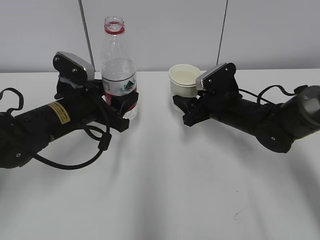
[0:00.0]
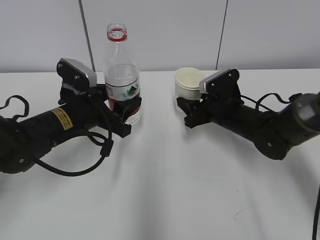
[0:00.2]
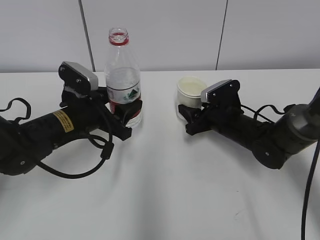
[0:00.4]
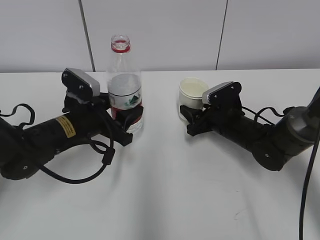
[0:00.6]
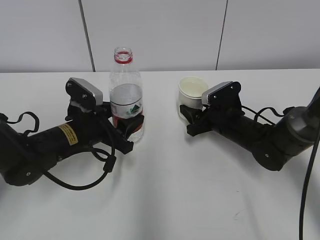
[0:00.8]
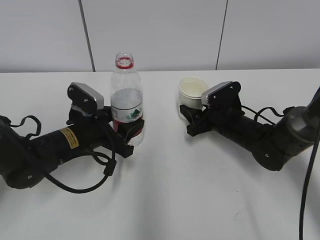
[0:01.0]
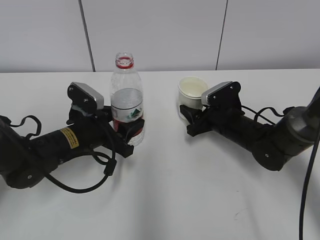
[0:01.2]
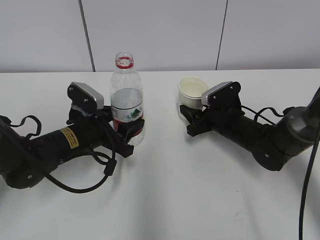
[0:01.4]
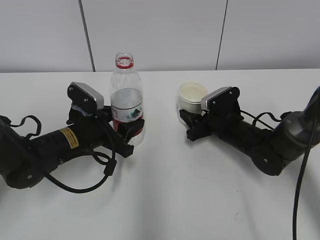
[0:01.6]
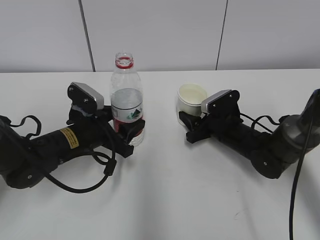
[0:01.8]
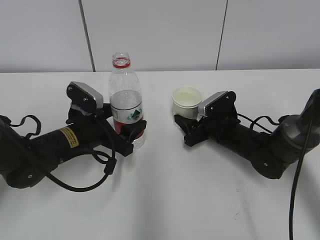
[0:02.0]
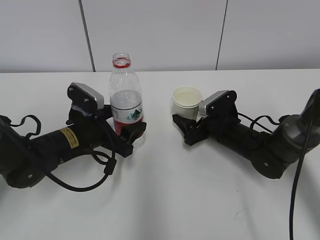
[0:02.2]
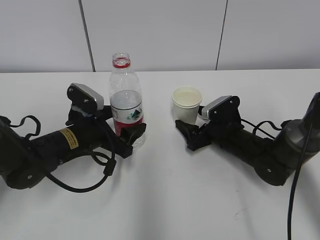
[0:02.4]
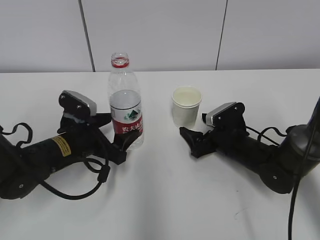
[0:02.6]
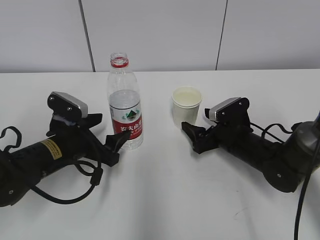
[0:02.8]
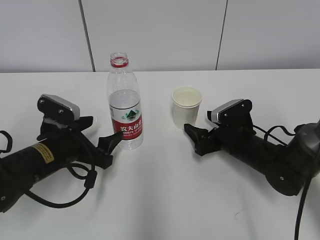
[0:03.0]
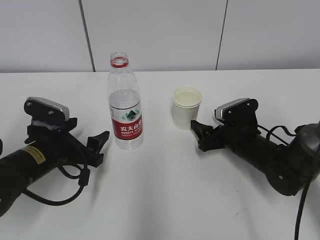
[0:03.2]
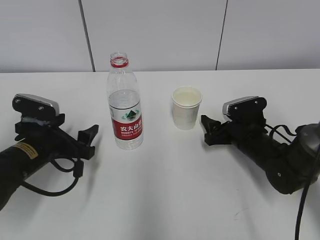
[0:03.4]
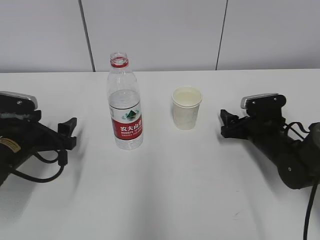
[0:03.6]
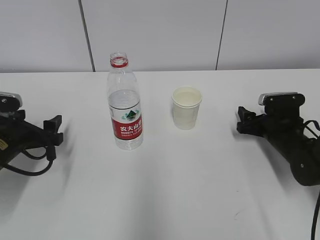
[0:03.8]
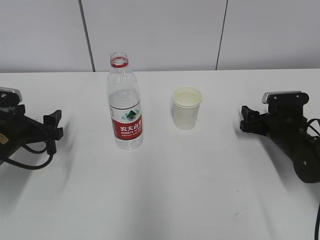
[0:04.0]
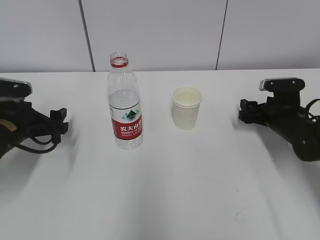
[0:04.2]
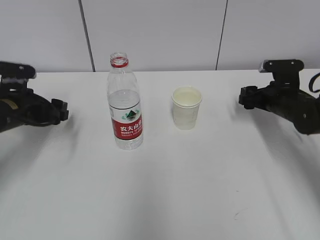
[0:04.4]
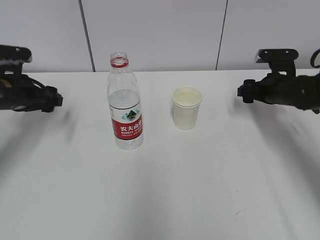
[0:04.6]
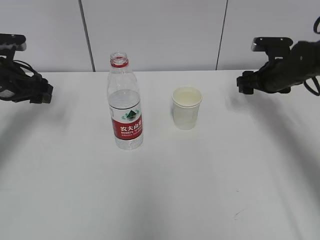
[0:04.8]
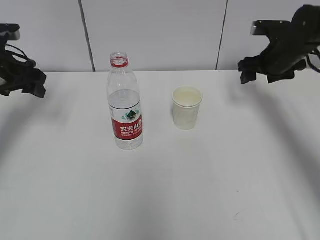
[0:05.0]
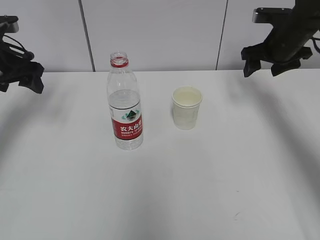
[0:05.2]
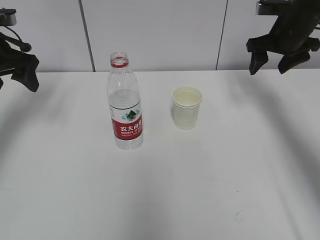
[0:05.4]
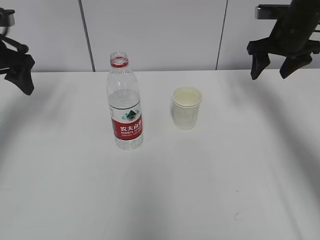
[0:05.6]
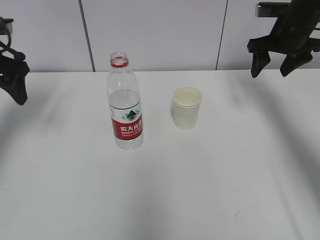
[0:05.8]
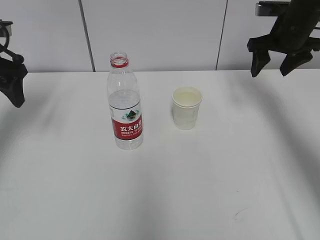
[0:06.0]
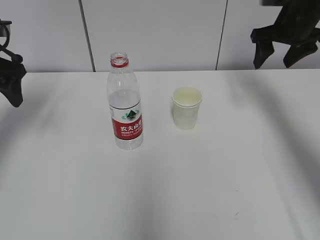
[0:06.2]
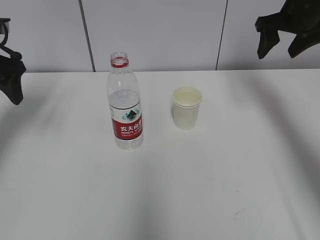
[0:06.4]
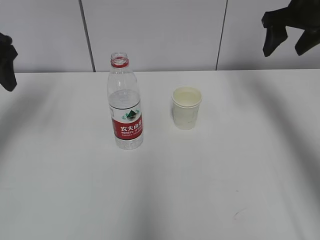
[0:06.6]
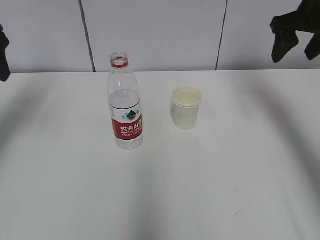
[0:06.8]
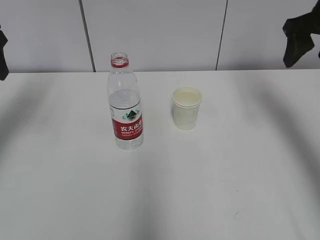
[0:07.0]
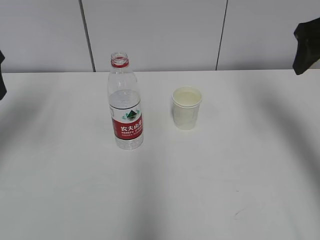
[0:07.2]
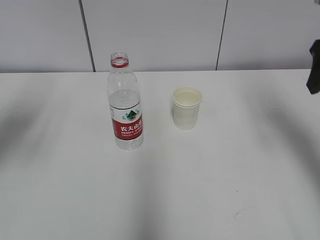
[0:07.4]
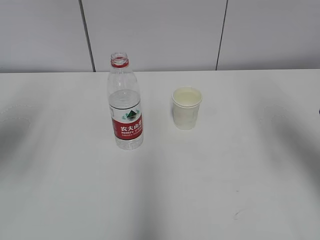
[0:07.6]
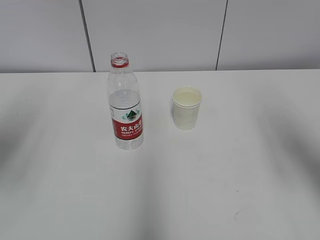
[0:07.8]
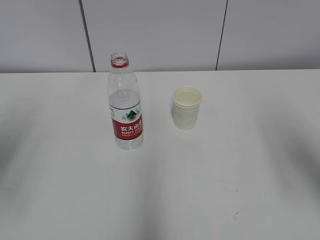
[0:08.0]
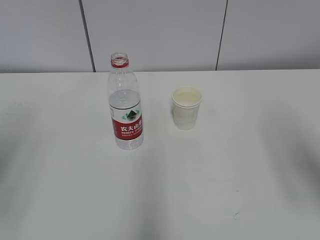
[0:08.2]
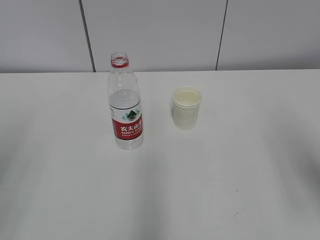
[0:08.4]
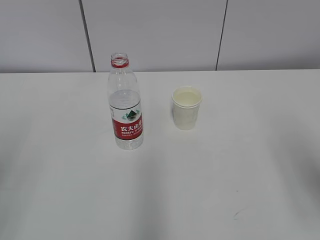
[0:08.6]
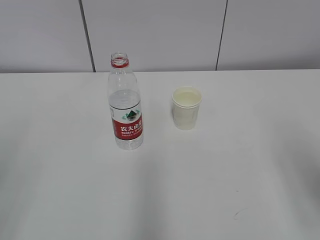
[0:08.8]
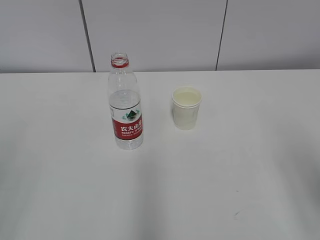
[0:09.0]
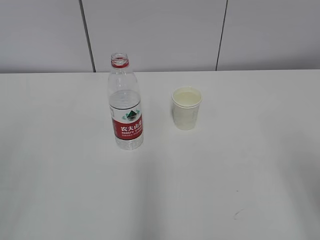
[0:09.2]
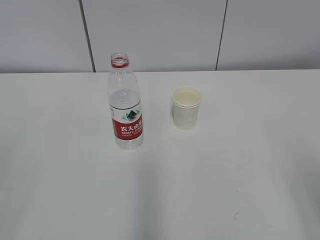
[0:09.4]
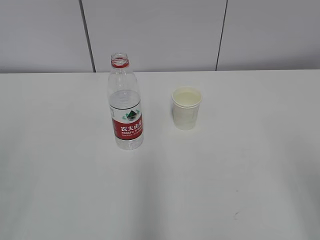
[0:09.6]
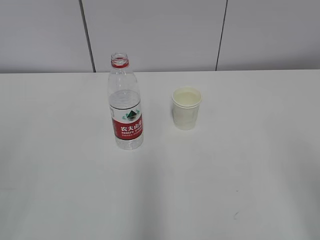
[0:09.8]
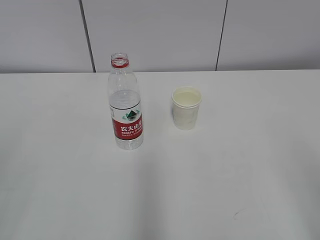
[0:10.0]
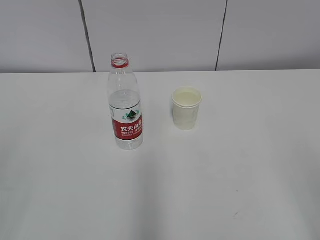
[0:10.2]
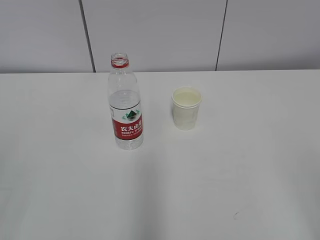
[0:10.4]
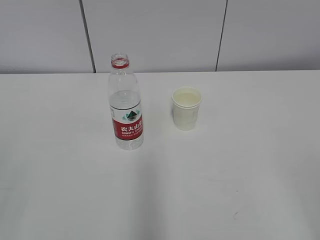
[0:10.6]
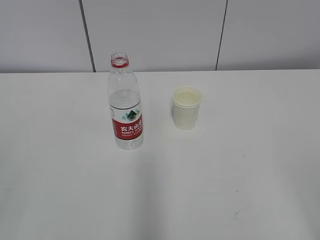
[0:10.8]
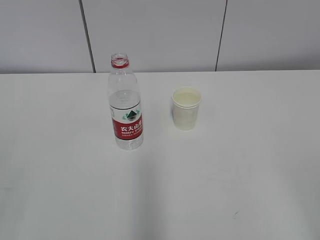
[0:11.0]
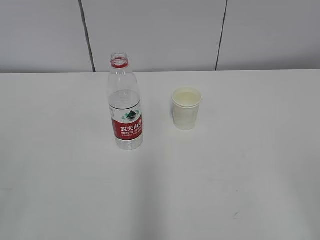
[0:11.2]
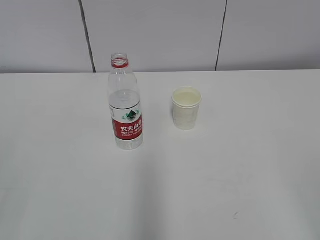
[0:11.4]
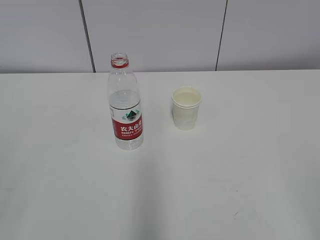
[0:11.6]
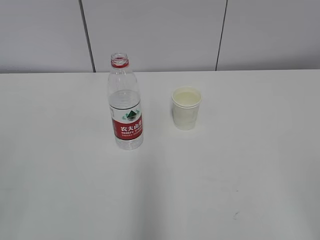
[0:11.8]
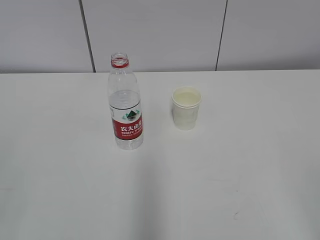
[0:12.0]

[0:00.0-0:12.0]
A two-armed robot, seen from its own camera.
0:00.0 to 0:01.6: Both grippers travel together downward, roughly 5 cm.
0:01.6 to 0:03.0: The left gripper opens up, while the right gripper opens its fingers.
0:03.0 to 0:04.4: The right gripper is displaced to the right and forward by some 10 cm, while the left gripper is displaced to the left and forward by approximately 10 cm.
0:04.4 to 0:06.0: The grippers both shift upward by approximately 15 cm.
0:06.0 to 0:07.6: The left gripper heads backward, covering roughly 15 cm, while the right gripper is displaced backward by some 20 cm.
0:07.6 to 0:09.0: The grippers both shift backward by roughly 15 cm.

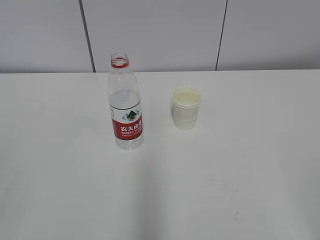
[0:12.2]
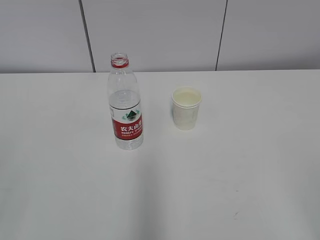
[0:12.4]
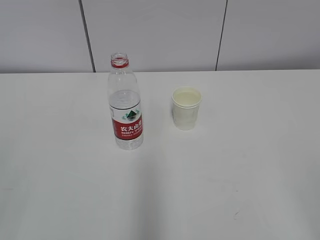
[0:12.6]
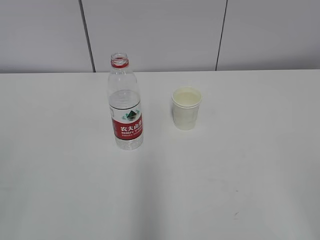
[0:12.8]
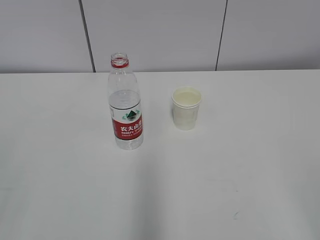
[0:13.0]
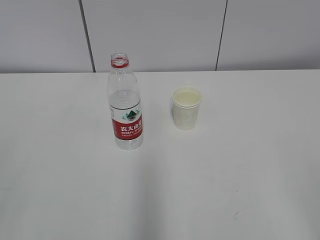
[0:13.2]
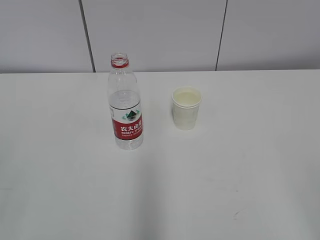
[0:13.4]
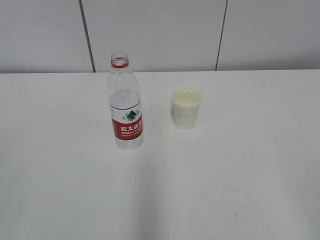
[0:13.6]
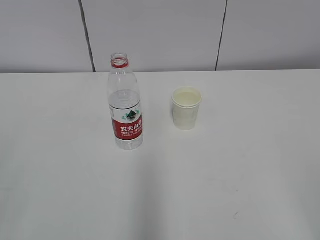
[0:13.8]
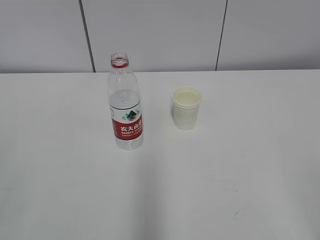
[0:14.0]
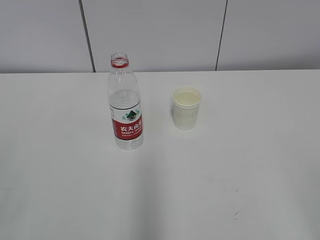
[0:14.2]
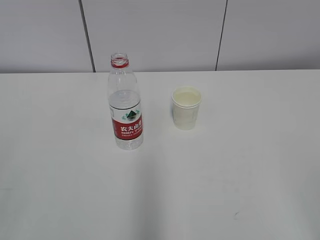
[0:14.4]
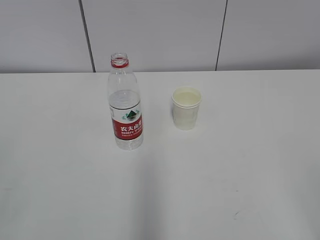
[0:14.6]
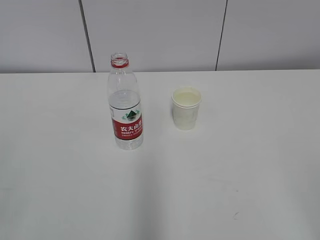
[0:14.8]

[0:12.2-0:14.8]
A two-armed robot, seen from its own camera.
0:12.2 to 0:14.8: Neither gripper changes place.

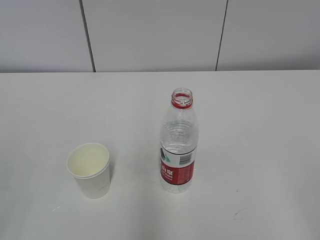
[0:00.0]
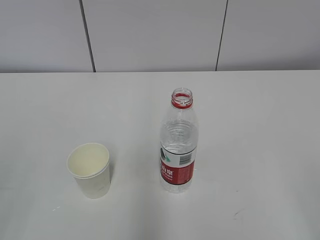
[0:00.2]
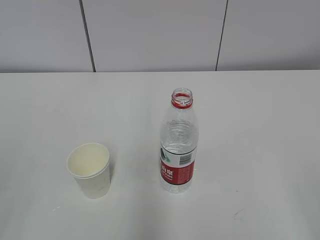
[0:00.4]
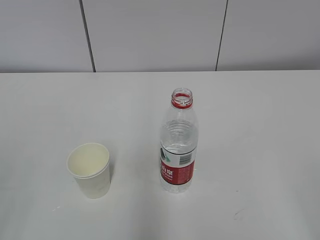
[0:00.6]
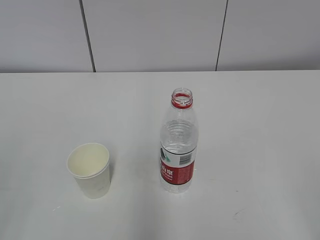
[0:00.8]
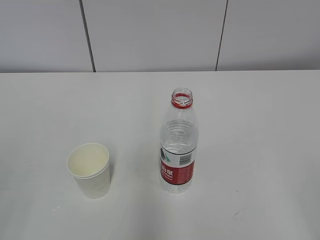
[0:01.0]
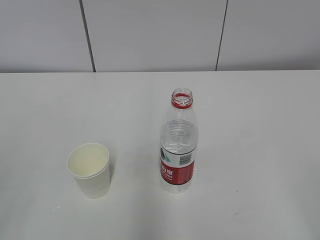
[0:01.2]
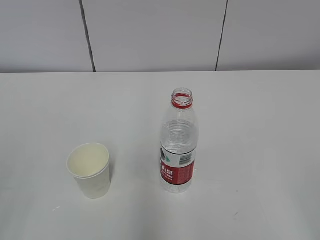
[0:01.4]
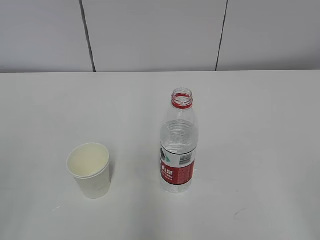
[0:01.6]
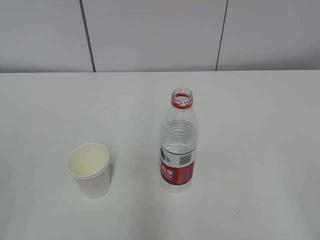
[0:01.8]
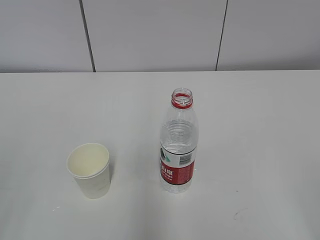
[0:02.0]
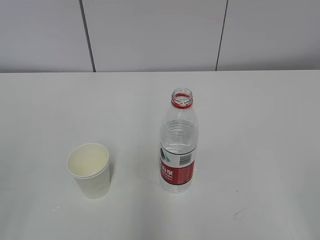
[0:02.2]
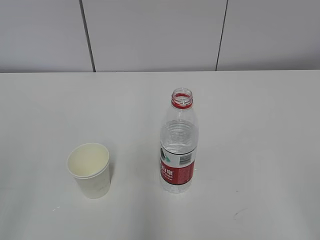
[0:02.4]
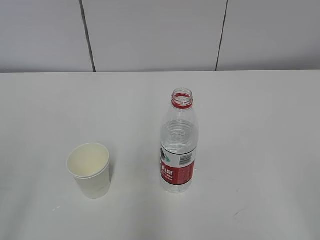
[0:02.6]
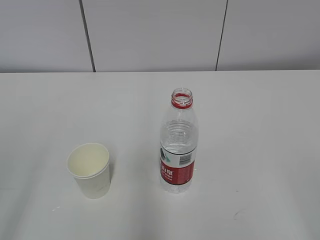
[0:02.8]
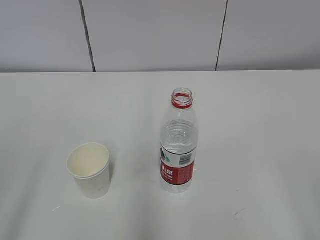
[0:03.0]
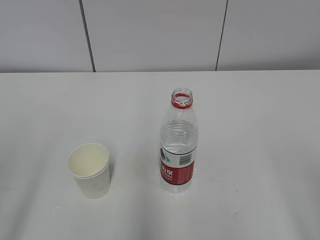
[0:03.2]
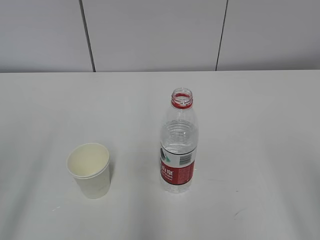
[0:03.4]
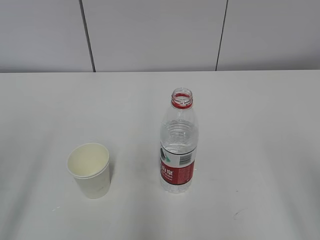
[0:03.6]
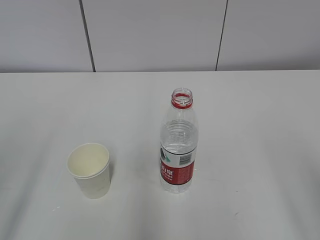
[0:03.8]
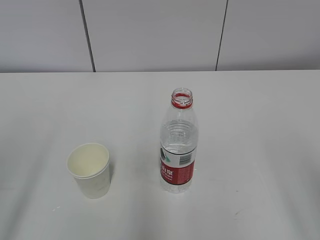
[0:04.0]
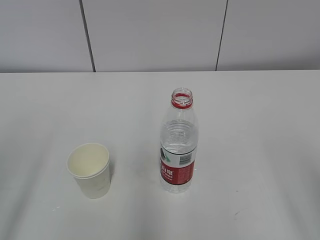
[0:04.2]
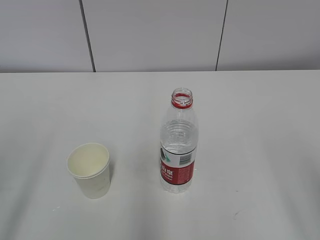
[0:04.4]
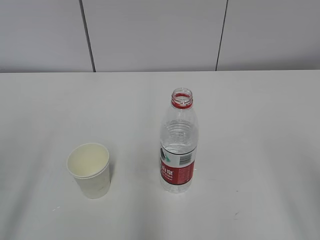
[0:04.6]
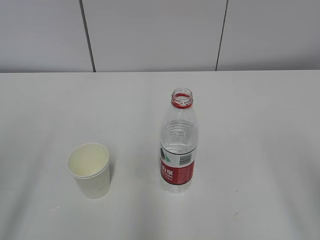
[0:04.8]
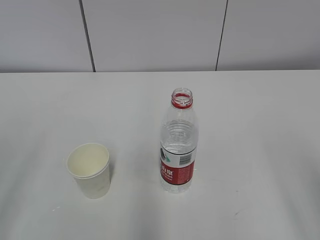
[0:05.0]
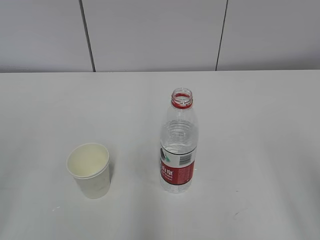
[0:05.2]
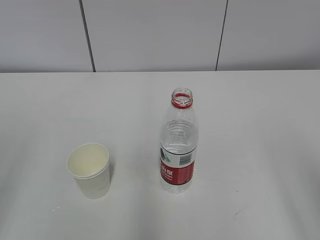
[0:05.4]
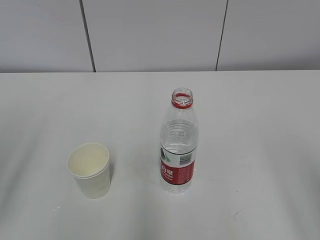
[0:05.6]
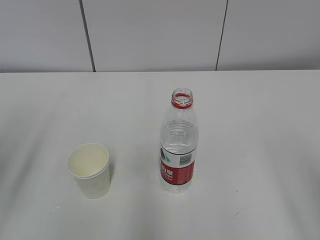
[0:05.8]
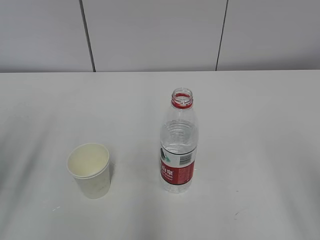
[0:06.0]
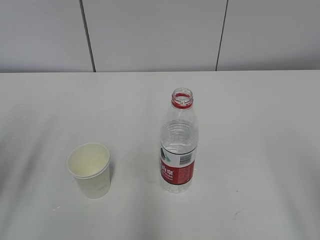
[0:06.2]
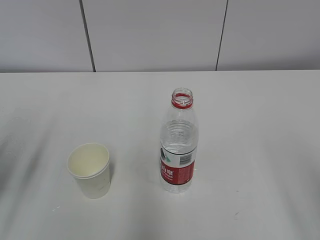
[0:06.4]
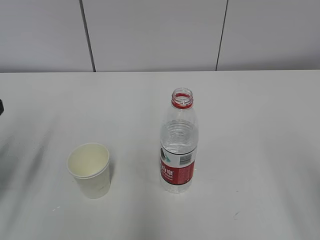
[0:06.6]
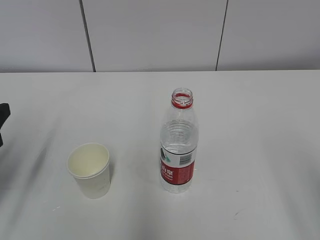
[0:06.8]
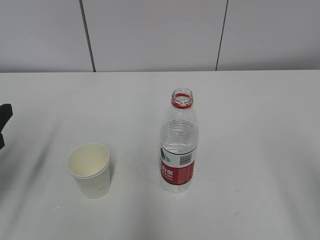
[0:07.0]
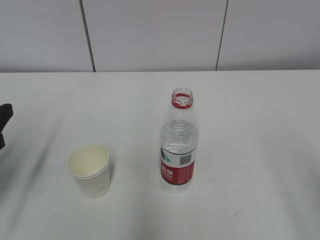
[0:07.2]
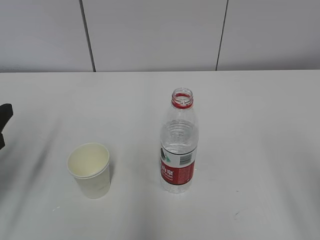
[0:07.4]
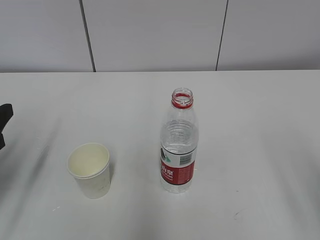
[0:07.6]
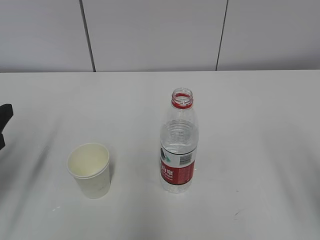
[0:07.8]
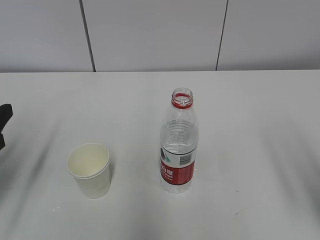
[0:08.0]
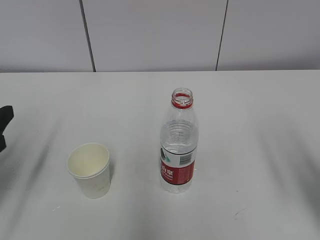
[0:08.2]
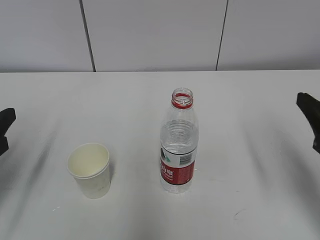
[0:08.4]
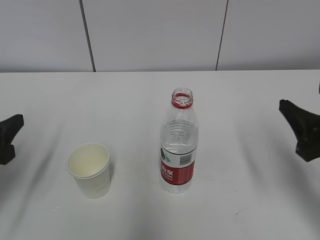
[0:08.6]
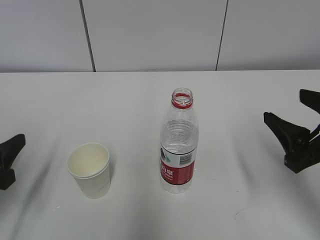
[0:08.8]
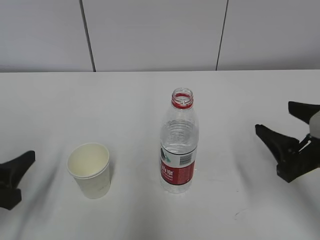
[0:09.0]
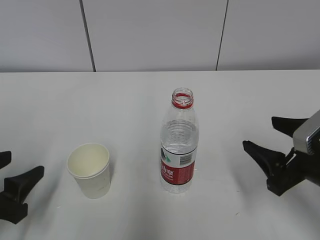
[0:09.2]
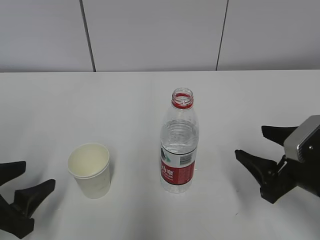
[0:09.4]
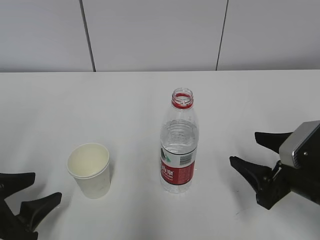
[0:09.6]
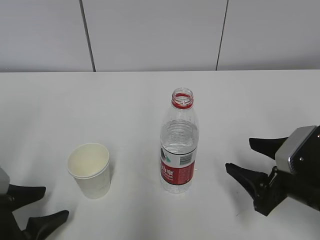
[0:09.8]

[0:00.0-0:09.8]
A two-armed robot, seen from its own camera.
0:05.6 to 0:07.0: The left gripper moves forward and downward, about 15 cm.
0:07.0 to 0:08.4: The right gripper is displaced forward and downward by approximately 15 cm.
0:08.4 to 0:09.8: The two grippers go approximately 10 cm downward.